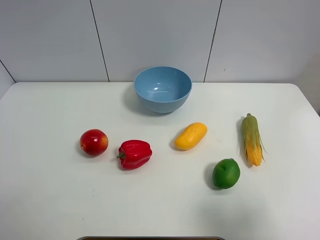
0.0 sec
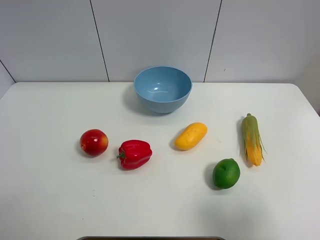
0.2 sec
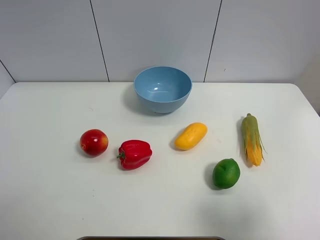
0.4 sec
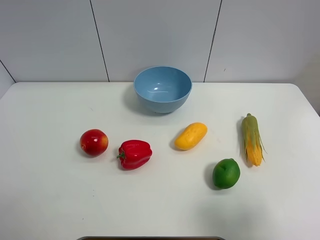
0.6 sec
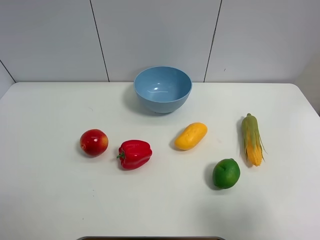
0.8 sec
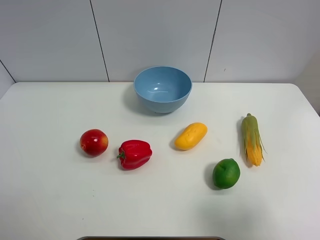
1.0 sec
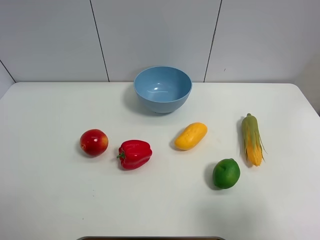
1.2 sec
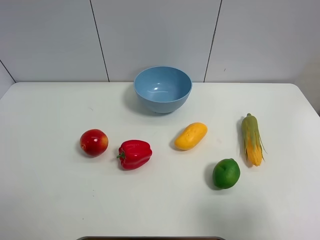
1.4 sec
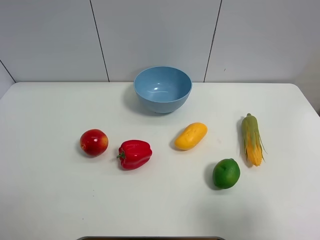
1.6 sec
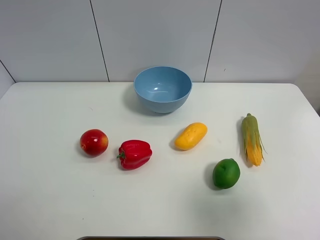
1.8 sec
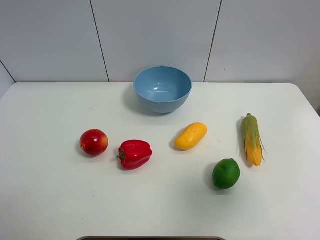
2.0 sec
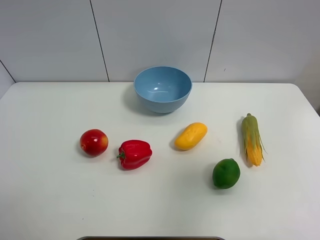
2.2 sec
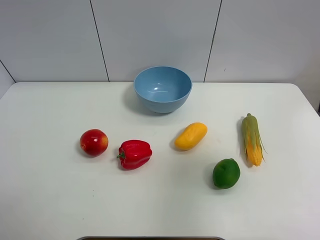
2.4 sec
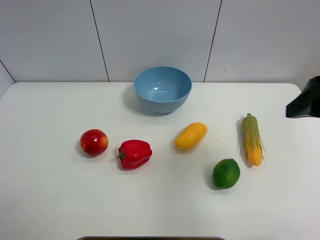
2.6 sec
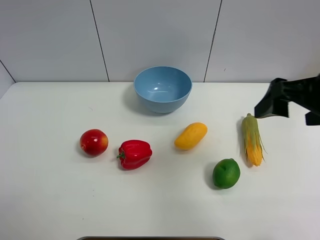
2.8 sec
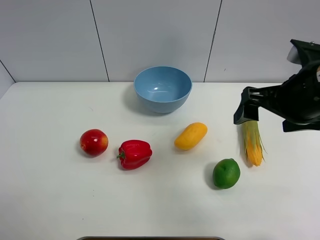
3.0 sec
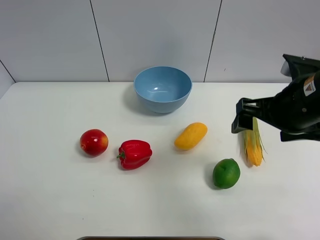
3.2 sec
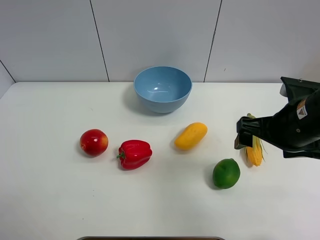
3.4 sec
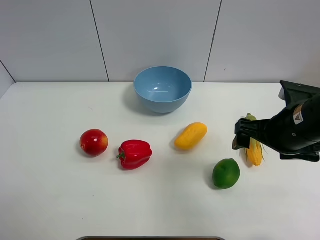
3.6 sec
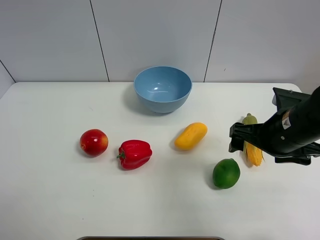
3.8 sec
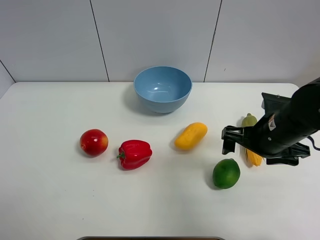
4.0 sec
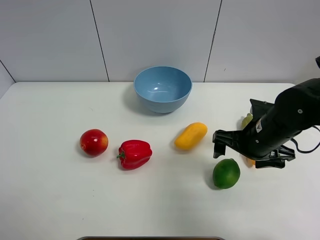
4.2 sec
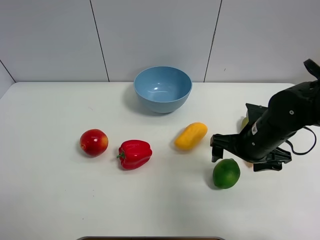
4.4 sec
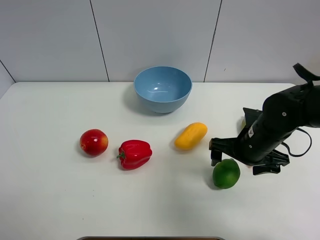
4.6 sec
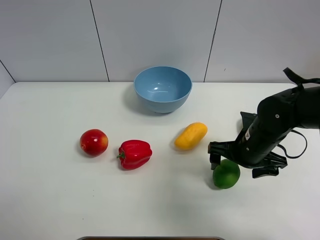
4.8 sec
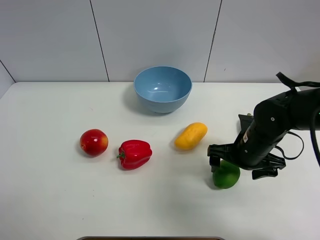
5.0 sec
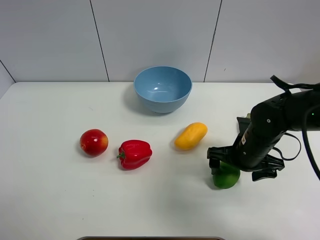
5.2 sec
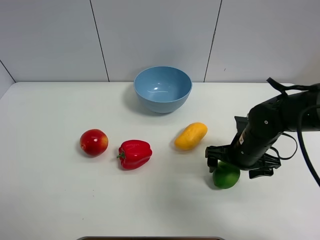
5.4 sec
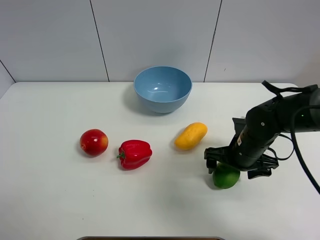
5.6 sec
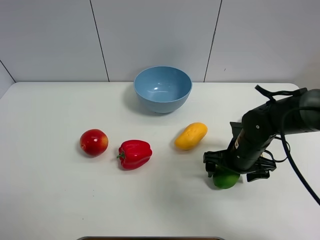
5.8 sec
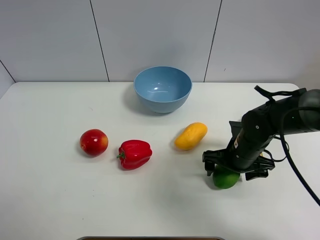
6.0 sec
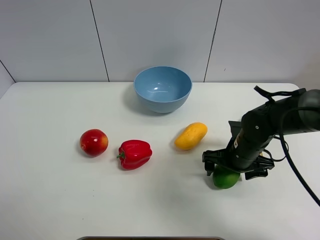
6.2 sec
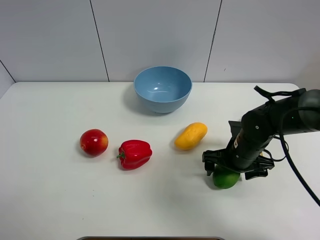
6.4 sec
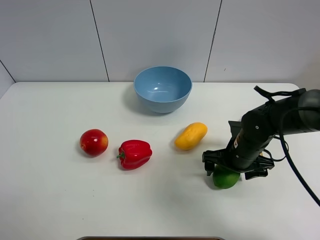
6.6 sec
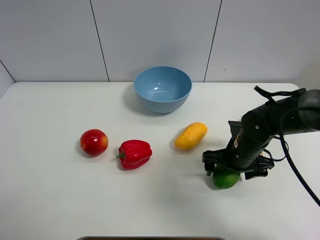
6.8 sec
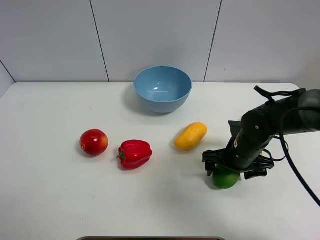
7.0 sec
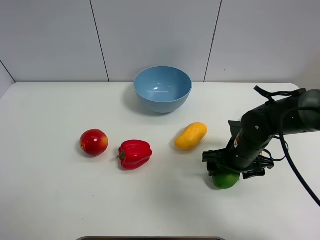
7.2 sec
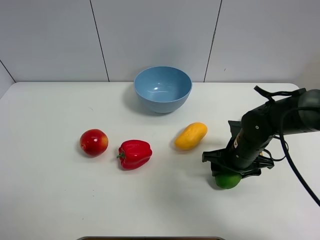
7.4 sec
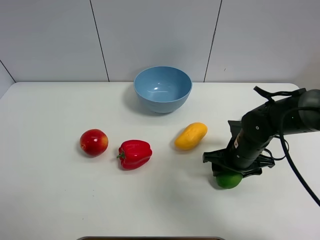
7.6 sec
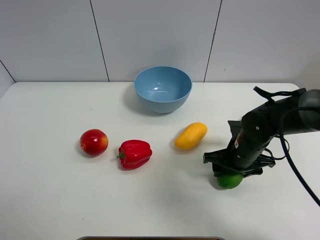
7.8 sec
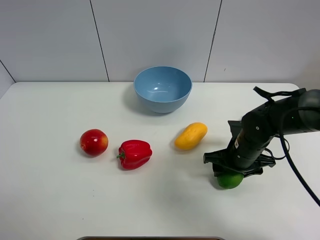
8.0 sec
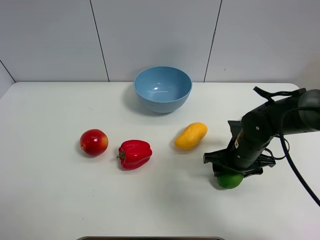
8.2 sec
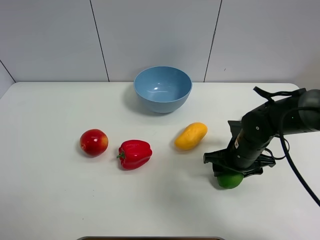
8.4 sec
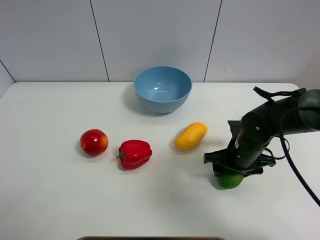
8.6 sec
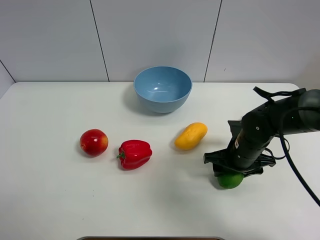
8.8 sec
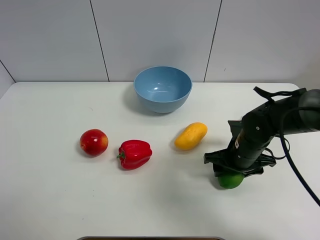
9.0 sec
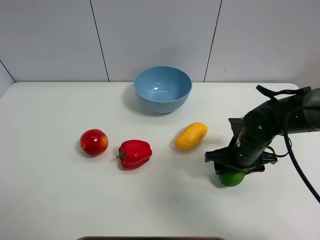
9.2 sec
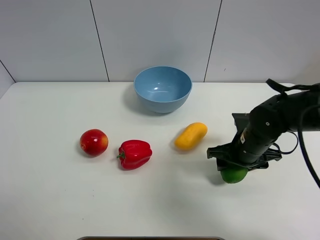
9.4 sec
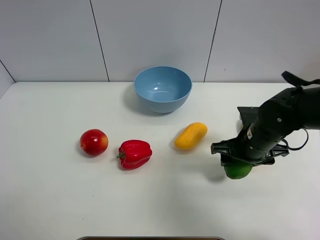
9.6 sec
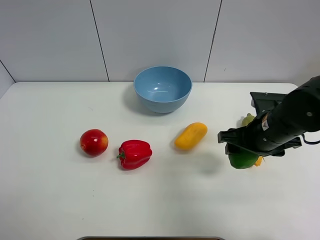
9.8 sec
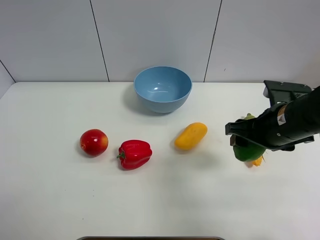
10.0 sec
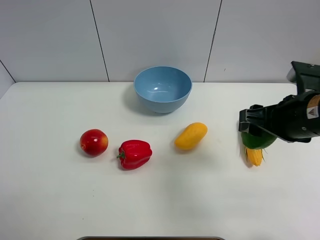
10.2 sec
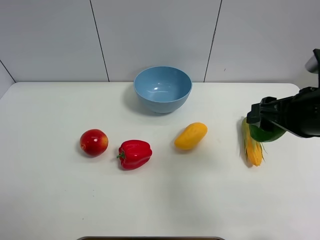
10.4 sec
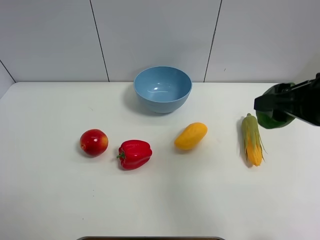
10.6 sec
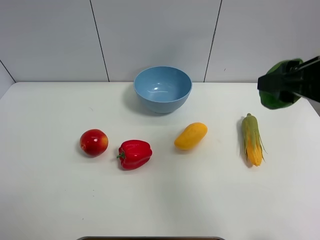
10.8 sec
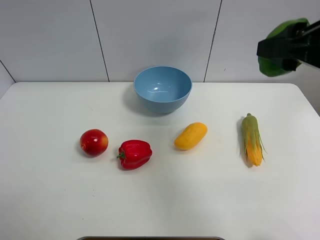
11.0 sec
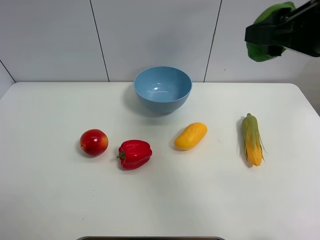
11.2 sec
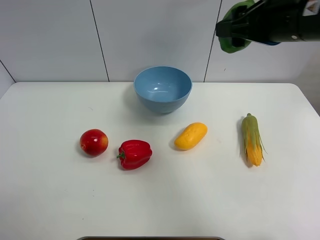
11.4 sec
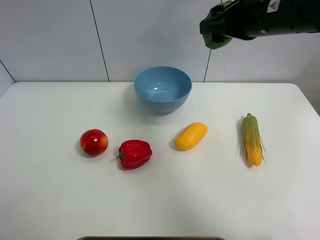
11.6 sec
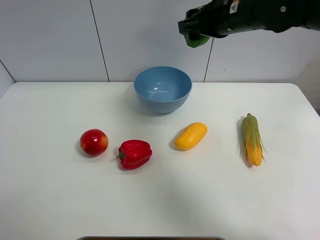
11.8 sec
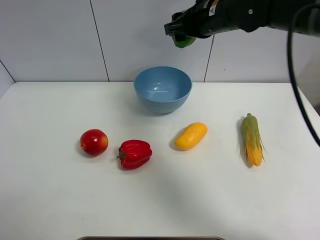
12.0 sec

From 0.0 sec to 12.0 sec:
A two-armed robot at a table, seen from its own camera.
Task of the whole recording: Put the three fruits on the table into a bowl.
Step, from 0.0 sec to 7.4 sec: Grasp the green lemon with right gripper.
From 0.0 sec to 1.6 sec: The two grippers keep their place.
From 1.6 sec to 3.0 sec: The right gripper heads forward and to the left, covering about 25 cm.
From 3.0 sec to 4.4 sec: The right gripper moves downward, about 15 cm.
From 4.4 sec to 6.0 sec: The right gripper heads downward, covering roughly 5 cm.
From 6.0 sec to 7.6 sec: The right gripper closes.
From 7.6 sec to 9.0 sec: Neither gripper changes place.
From 9.0 sec to 10.4 sec: The right gripper shifts roughly 20 cm upward and backward.
From 10.4 sec to 12.0 sec: The right gripper is displaced forward and to the left by roughly 25 cm.

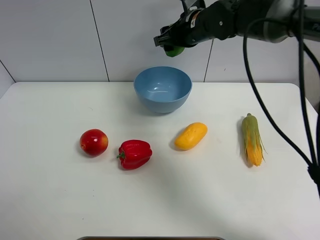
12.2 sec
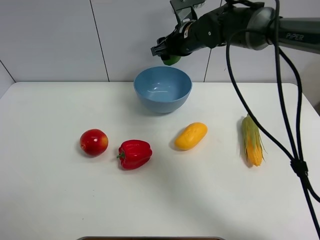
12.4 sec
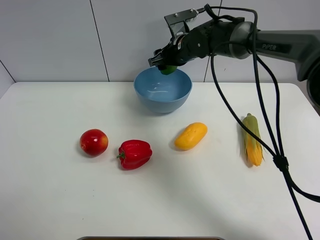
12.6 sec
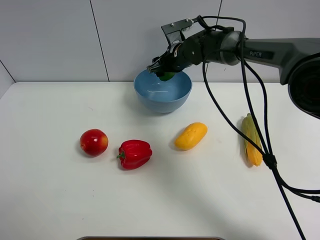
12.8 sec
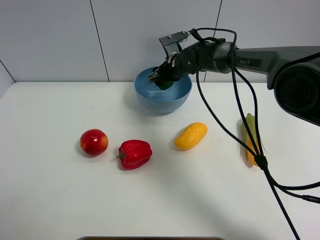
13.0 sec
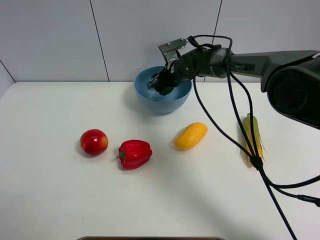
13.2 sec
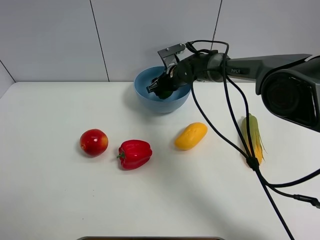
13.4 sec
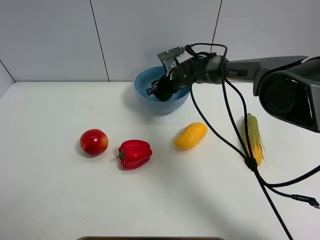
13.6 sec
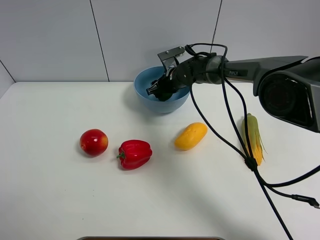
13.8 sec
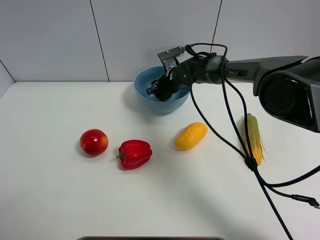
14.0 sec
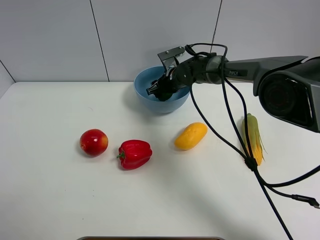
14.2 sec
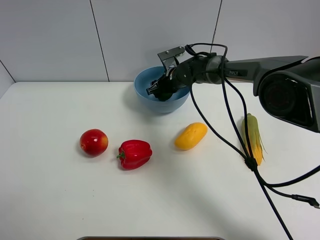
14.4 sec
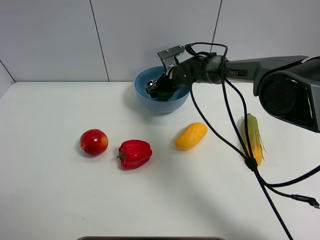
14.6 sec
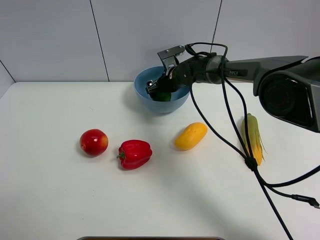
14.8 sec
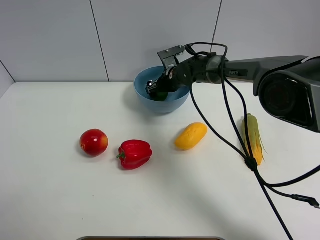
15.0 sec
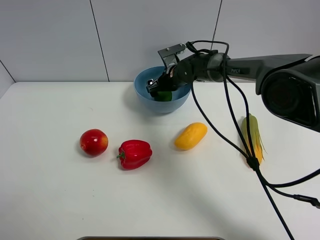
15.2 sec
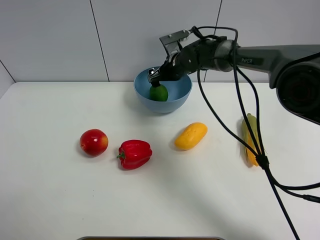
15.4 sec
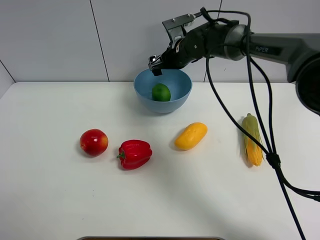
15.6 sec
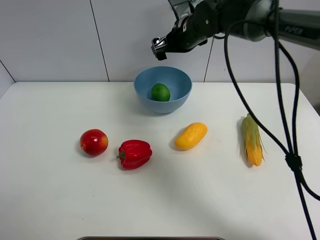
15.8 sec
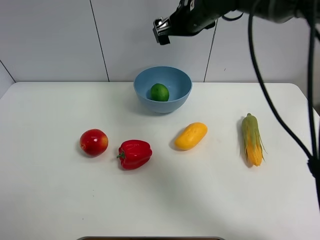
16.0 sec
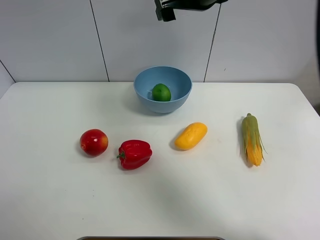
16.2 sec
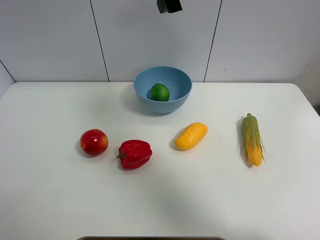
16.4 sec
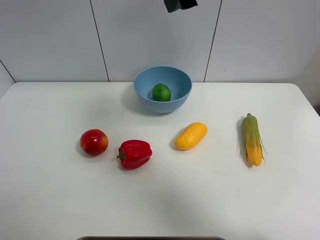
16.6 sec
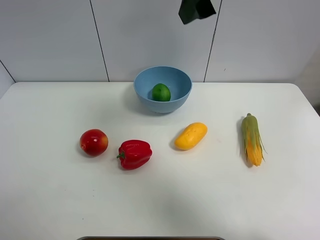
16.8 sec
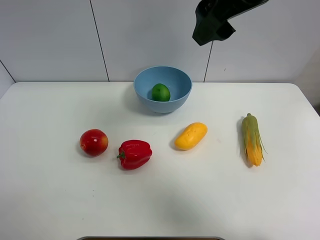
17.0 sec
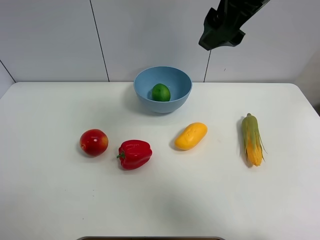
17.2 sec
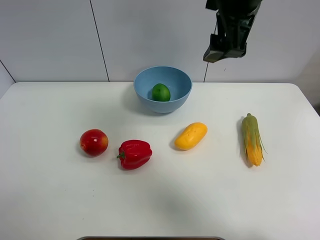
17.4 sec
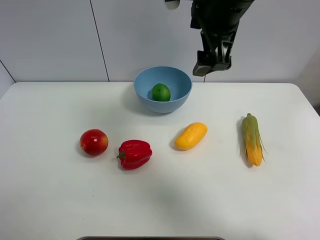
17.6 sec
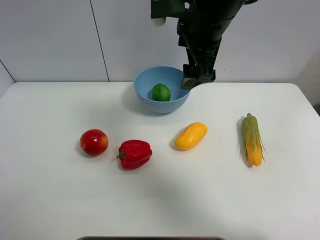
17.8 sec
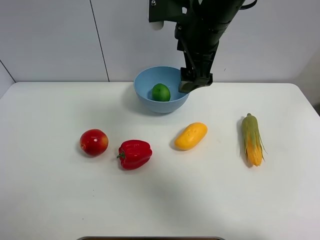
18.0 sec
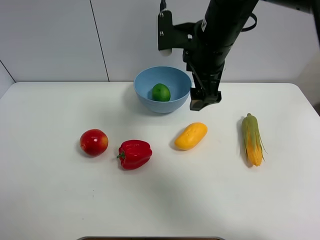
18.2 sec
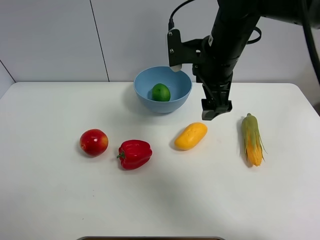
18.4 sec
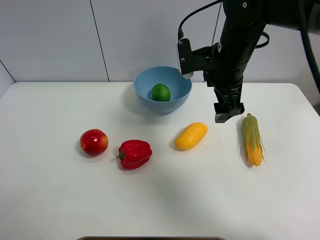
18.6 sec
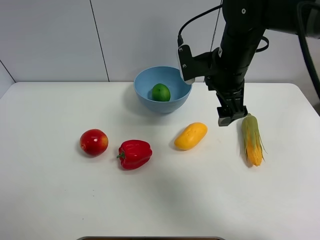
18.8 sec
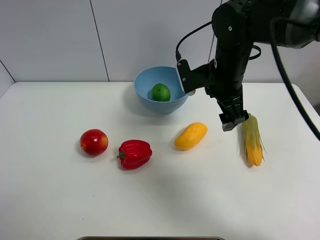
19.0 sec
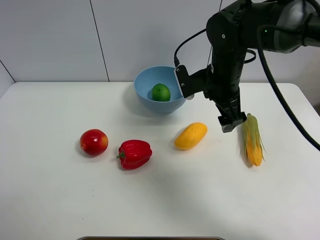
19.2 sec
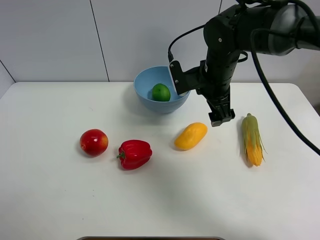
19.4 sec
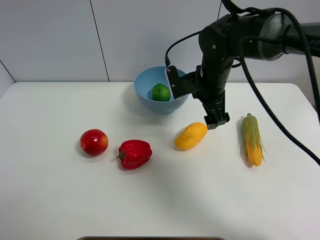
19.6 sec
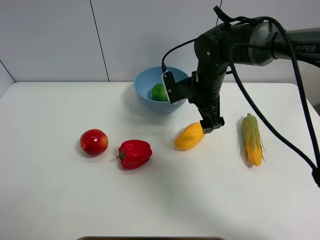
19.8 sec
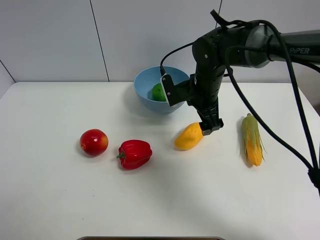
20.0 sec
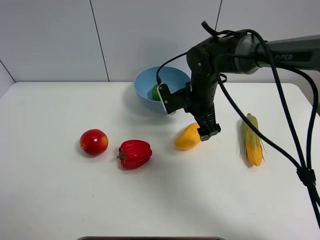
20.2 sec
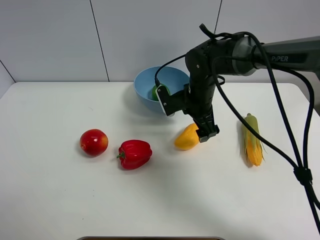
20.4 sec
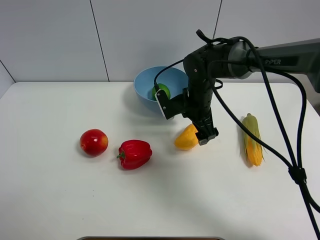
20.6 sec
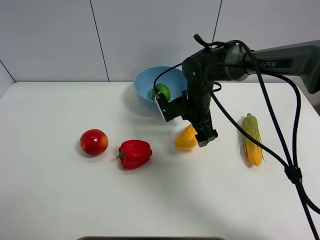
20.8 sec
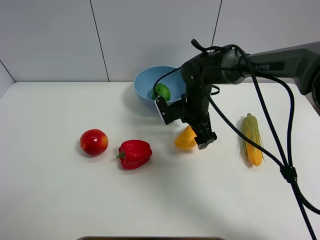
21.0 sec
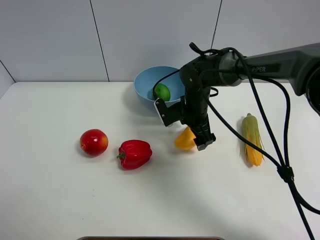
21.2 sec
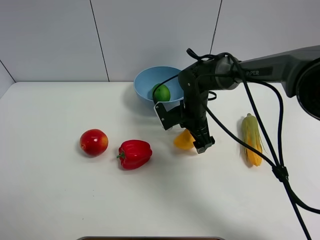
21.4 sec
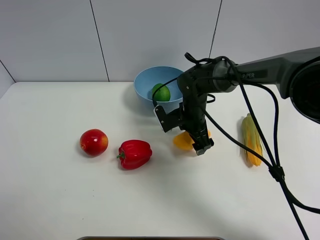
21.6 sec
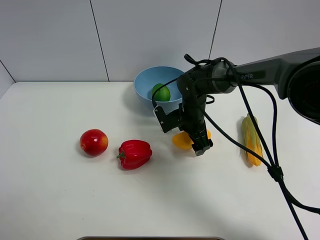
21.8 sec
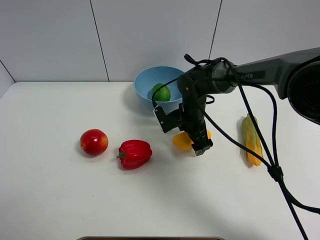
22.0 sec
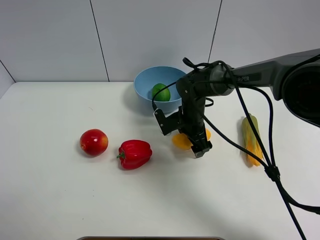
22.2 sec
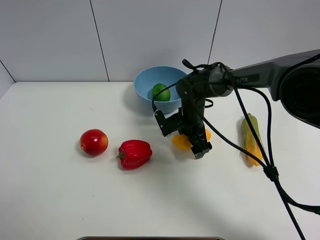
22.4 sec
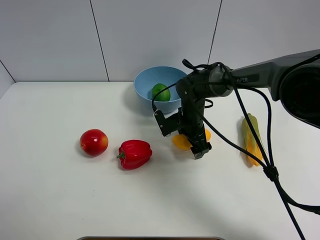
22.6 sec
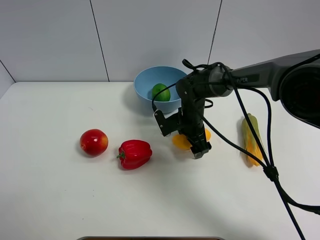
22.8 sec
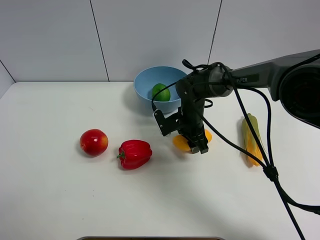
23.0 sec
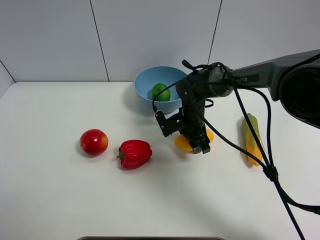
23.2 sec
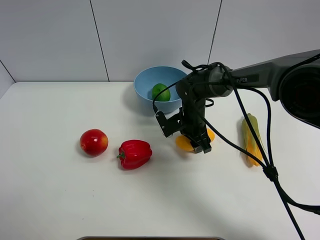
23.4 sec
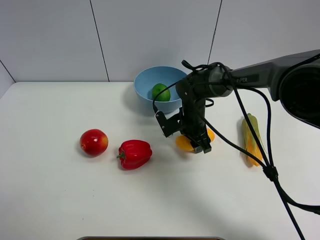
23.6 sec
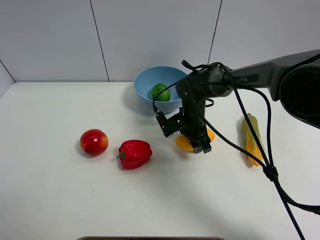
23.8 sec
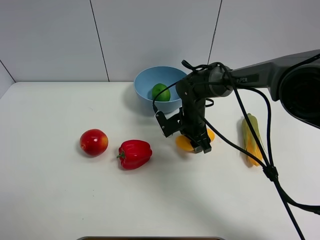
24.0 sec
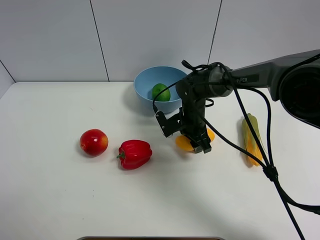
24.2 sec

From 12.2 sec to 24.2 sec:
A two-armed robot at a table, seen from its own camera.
Task of the whole recording: Put the three fruits on the table into a bowl.
Step, from 12.2 sec to 14.8 sec: Place the green lemon in the blue bowl with right gripper.
Step, from 15.0 sec to 23.0 sec: Grasp the mango with right gripper.
From 12.2 sec to 13.8 sec: The right gripper is displaced downward by roughly 15 cm.
From 13.8 sec to 15.2 sec: The right gripper opens up.
From 15.2 sec to 16.6 sec: The right gripper shifts approximately 35 cm upward and backward.
From 16.6 sec to 18.2 sec: The right gripper moves downward, about 15 cm.
From 18.2 sec to 19.8 sec: The right gripper shifts approximately 10 cm downward.
From 19.8 sec to 21.2 sec: The right gripper travels downward by approximately 5 cm.
From 21.2 sec to 22.6 sec: The grippers move only a little.
From 22.6 sec to 24.2 sec: The right gripper closes up.
